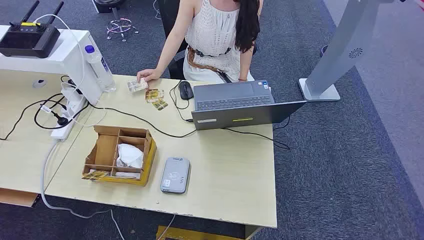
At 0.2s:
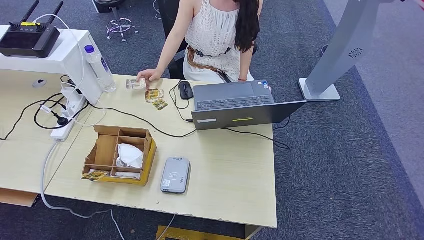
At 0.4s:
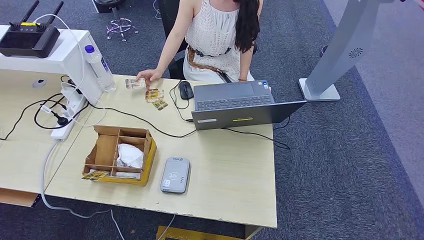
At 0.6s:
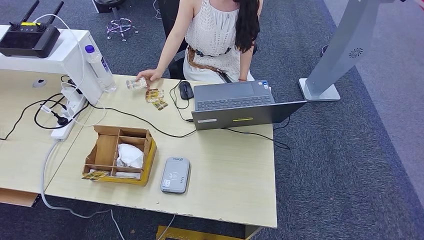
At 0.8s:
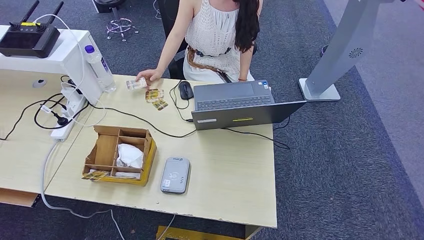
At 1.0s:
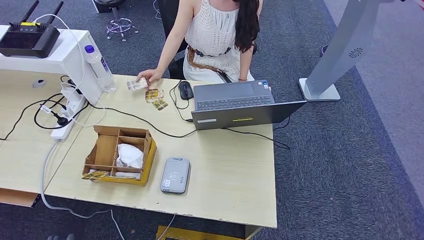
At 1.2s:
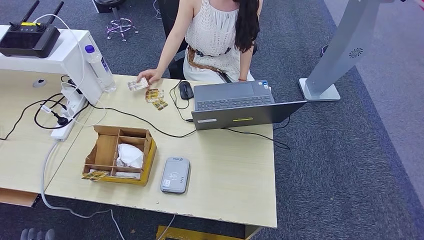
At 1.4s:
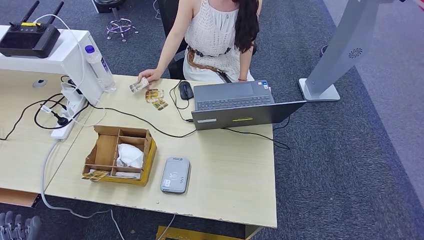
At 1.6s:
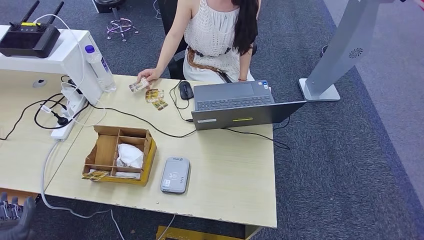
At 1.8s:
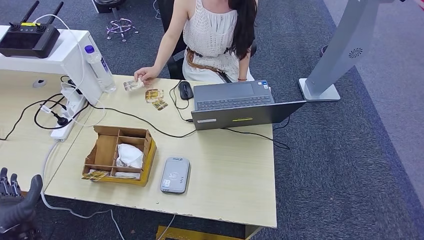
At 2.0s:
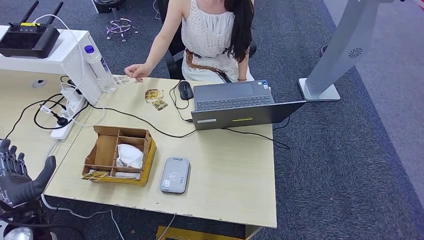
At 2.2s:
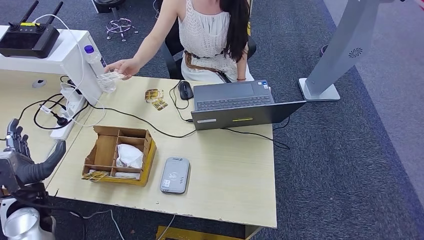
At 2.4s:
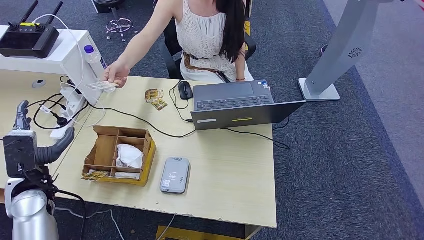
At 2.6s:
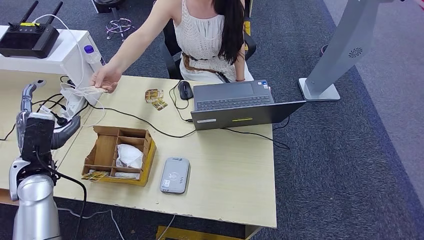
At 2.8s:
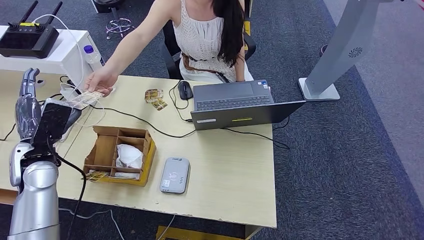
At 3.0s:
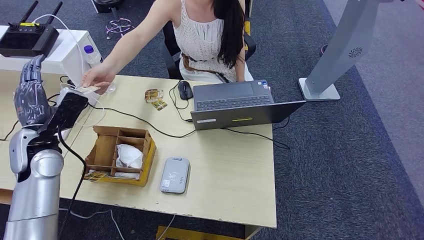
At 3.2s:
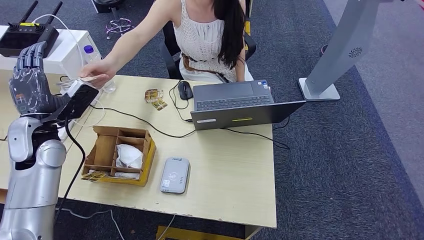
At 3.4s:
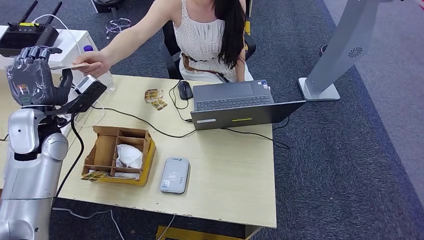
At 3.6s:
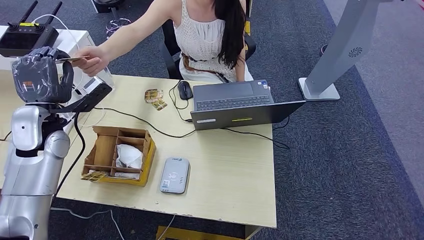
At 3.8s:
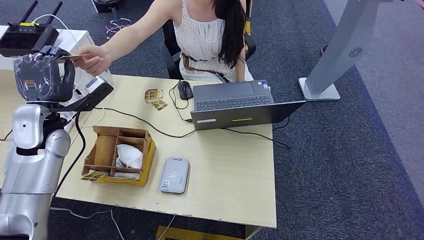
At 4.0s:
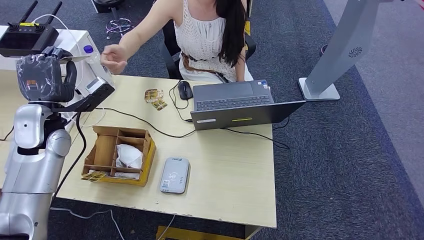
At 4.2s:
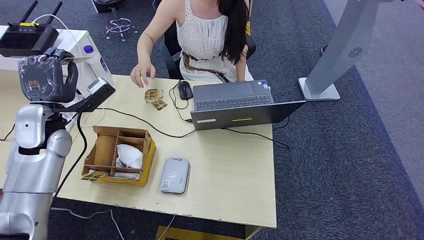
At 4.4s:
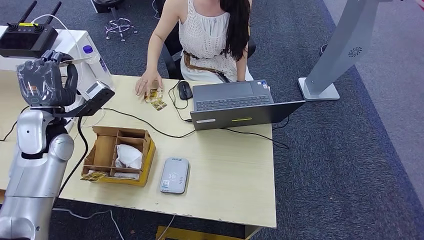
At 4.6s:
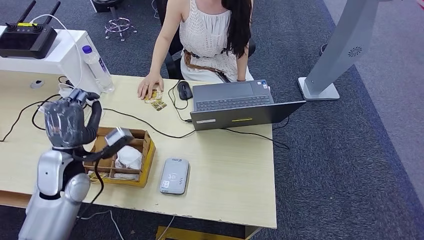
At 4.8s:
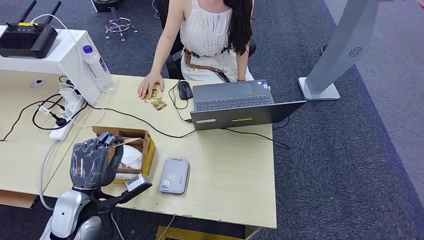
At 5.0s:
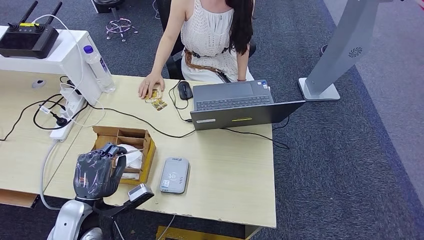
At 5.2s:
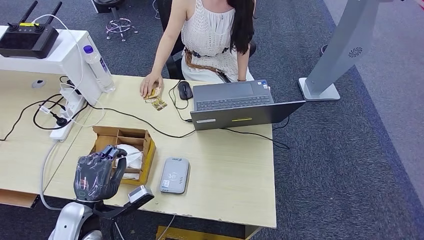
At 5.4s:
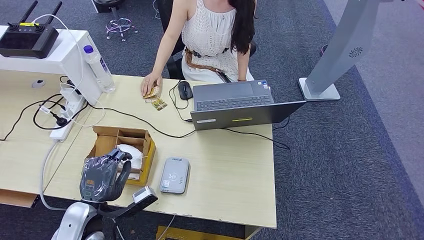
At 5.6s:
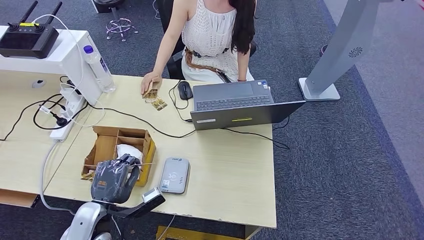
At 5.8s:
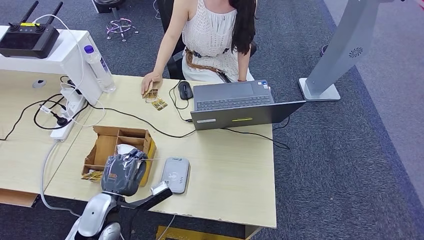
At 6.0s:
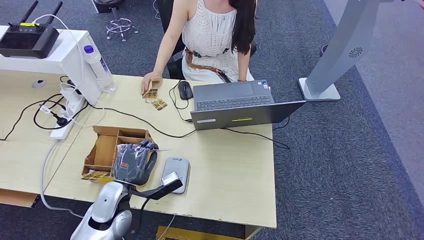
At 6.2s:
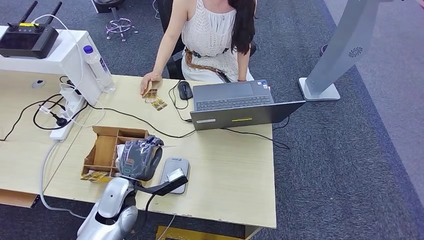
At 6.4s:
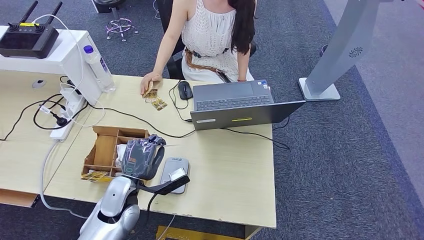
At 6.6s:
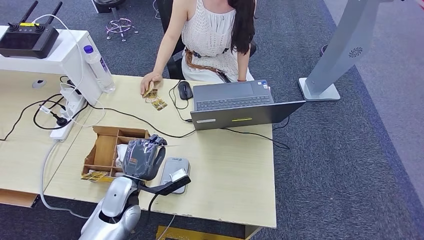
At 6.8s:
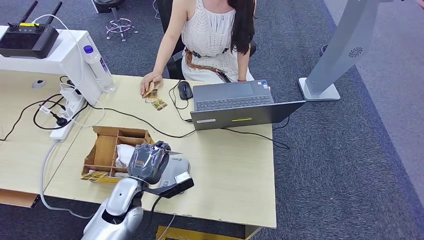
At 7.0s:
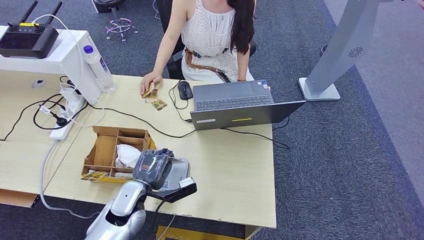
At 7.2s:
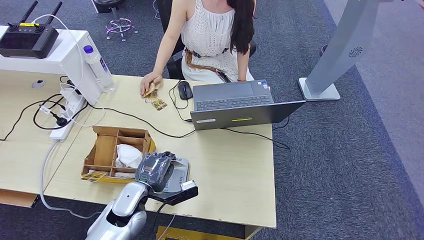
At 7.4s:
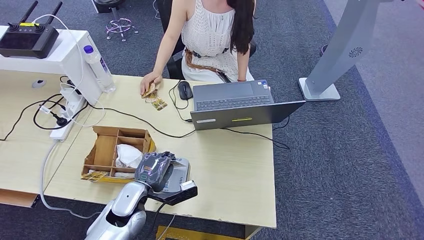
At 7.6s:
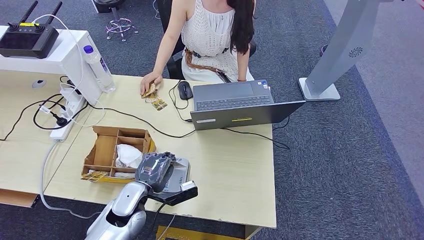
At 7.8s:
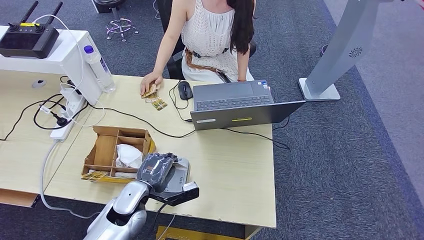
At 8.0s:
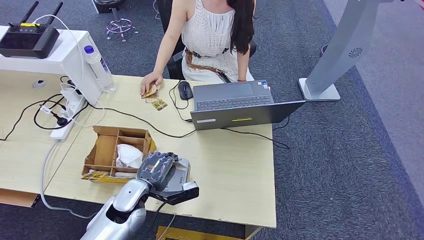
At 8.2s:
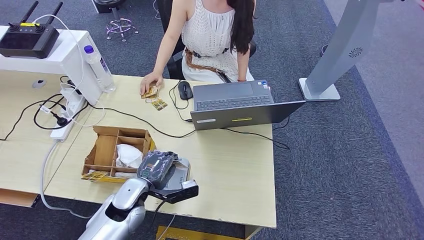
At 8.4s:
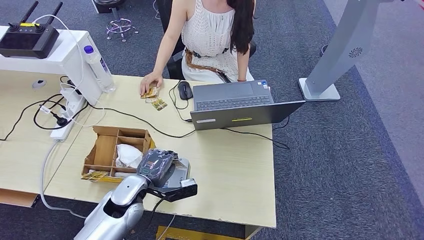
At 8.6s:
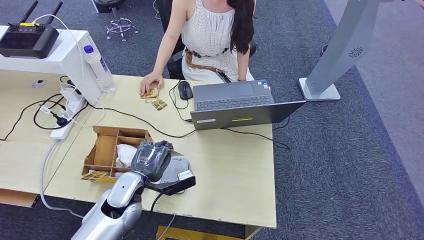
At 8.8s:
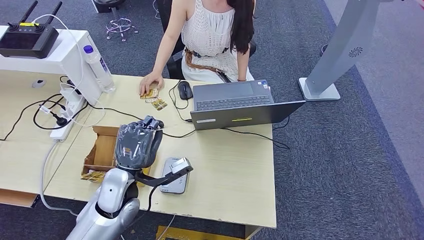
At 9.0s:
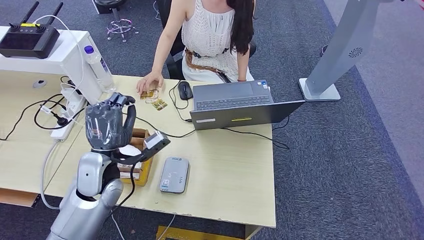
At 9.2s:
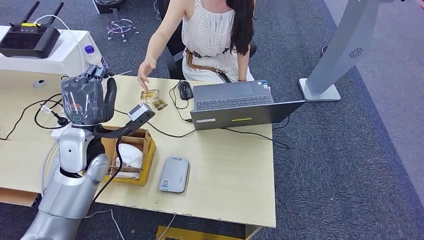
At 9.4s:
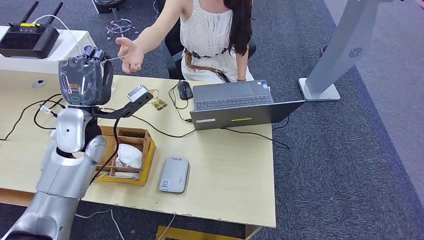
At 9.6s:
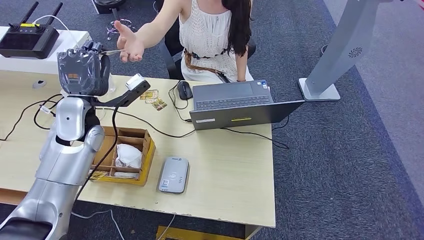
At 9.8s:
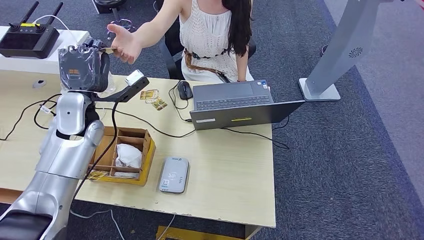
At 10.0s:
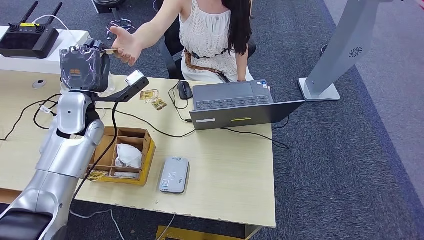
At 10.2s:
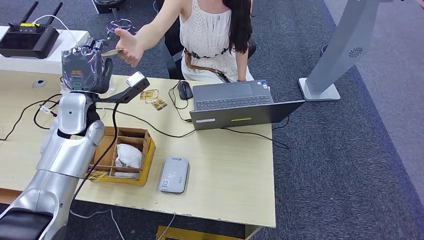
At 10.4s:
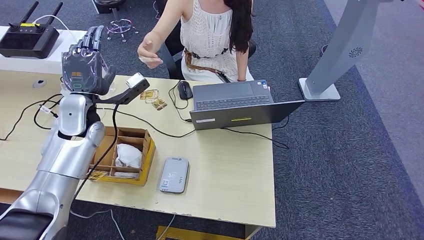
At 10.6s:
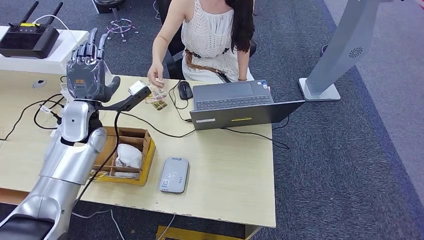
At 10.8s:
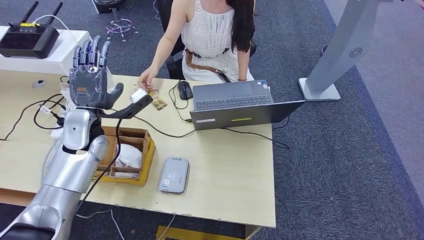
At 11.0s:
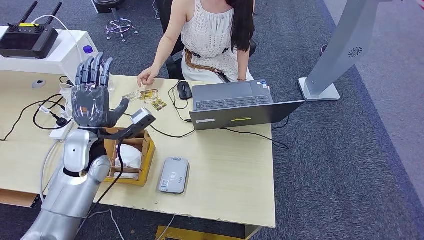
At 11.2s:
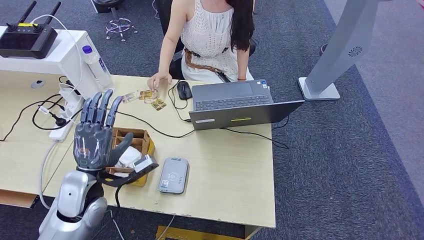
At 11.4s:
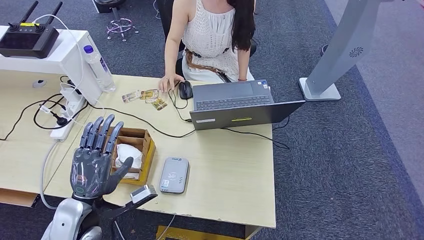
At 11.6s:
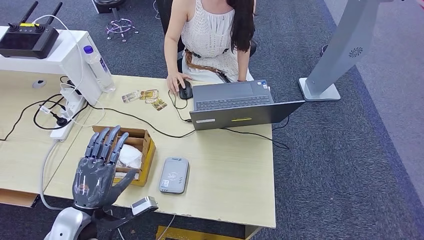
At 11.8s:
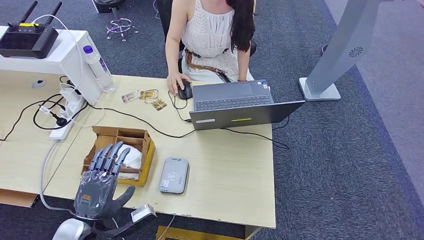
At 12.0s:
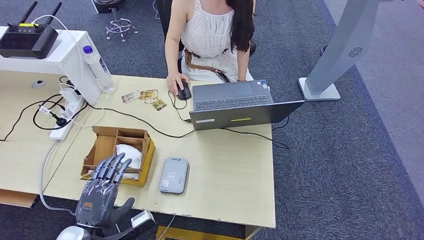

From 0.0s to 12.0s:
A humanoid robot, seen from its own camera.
Step, from 0.0s to 3.6s: Take the ID card from the person's hand.
Step, from 4.2s to 8.2s: Place the ID card on the card reader.
Step, from 8.4s to 11.0s: Hand the ID card to the person.
From 6.0s to 7.6s: The hands move only a little.
From 7.6s to 9.0s: The left hand travels upward and forward by roughly 15 cm.
From 9.0s to 10.4s: The left hand moves forward, upward and to the left, about 15 cm.
From 10.4s to 12.0s: The left hand moves backward and downward, roughly 30 cm.

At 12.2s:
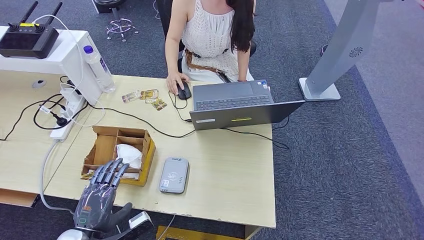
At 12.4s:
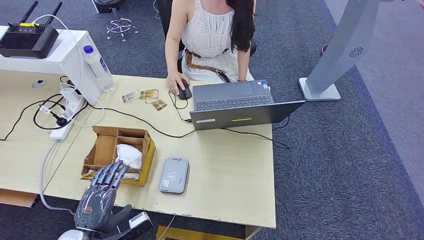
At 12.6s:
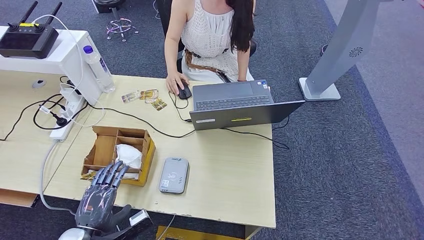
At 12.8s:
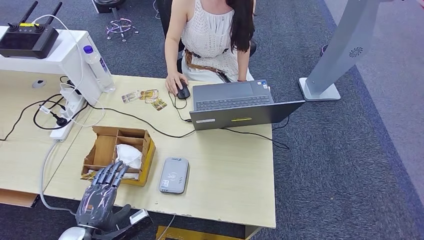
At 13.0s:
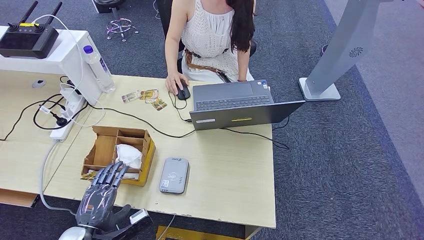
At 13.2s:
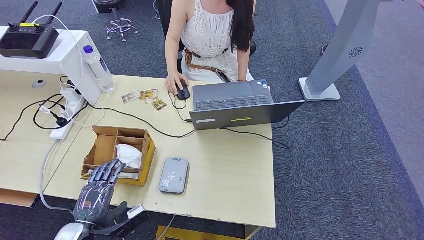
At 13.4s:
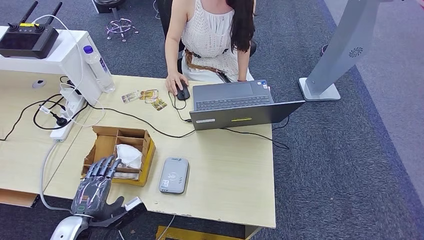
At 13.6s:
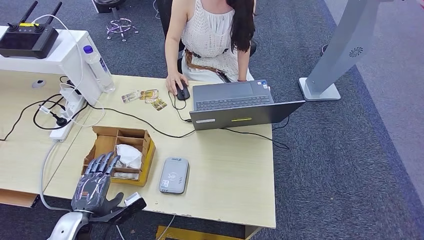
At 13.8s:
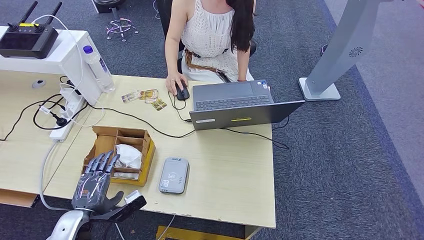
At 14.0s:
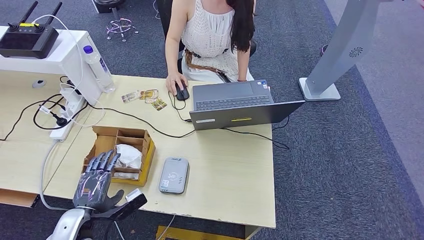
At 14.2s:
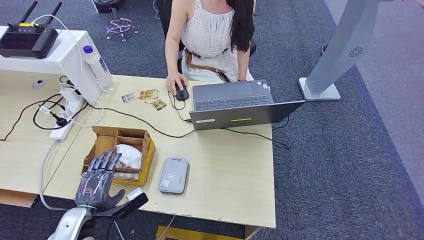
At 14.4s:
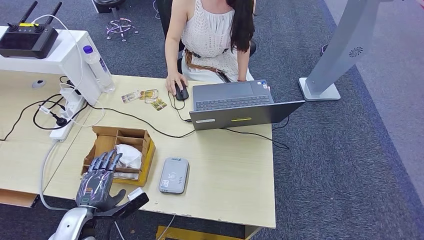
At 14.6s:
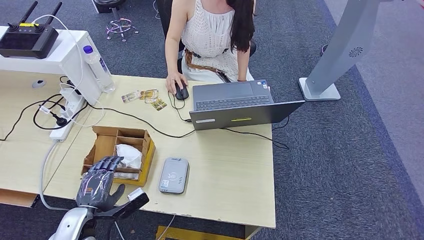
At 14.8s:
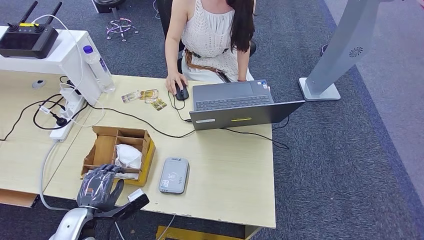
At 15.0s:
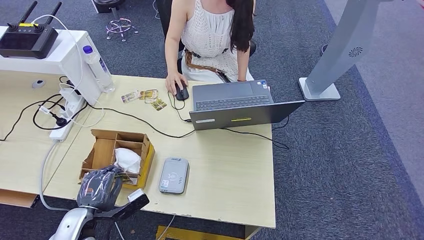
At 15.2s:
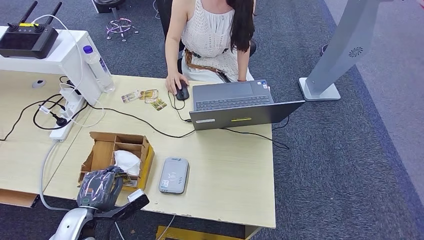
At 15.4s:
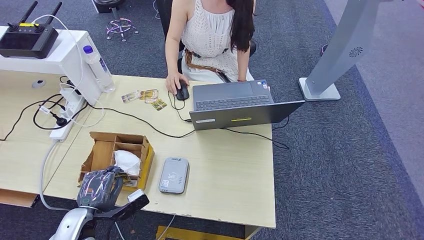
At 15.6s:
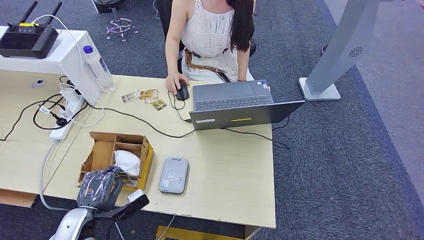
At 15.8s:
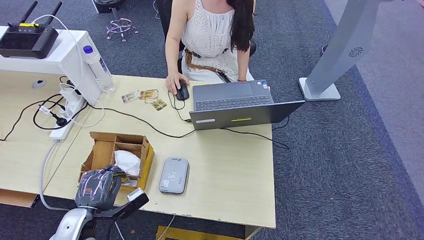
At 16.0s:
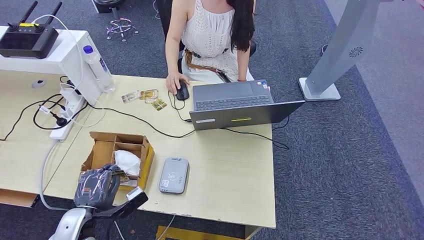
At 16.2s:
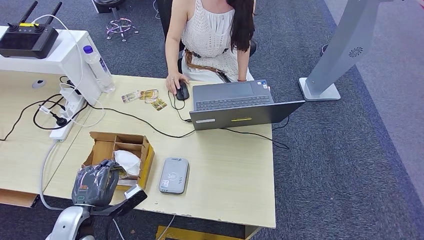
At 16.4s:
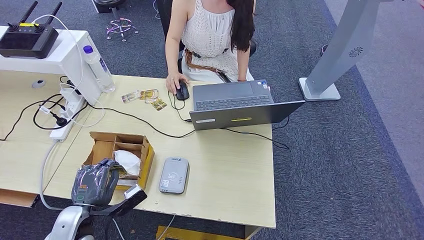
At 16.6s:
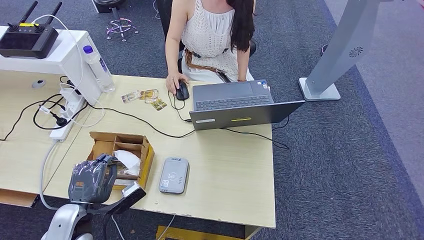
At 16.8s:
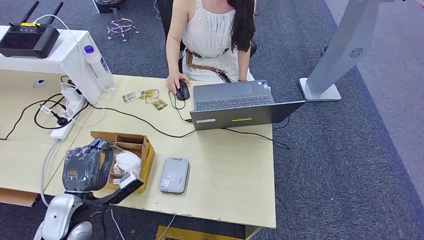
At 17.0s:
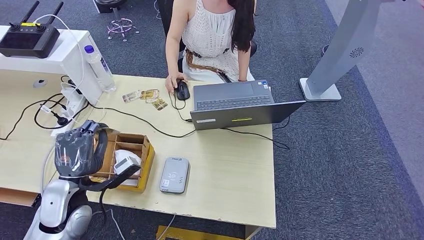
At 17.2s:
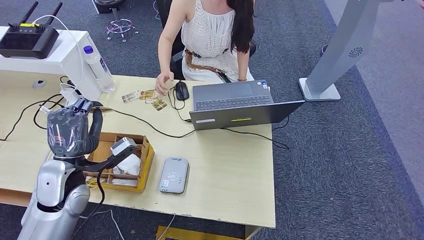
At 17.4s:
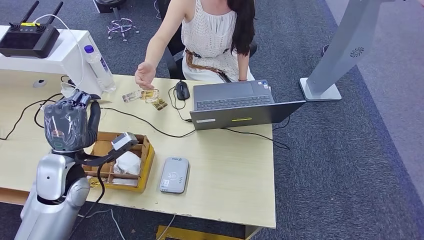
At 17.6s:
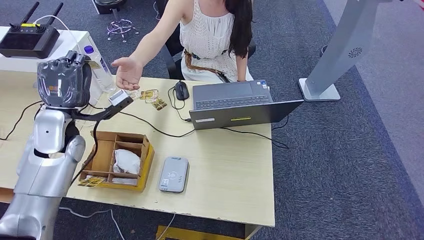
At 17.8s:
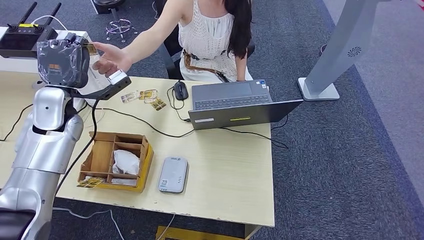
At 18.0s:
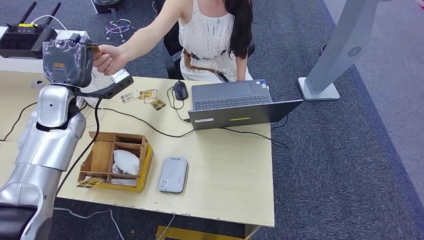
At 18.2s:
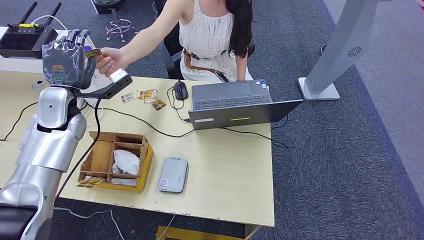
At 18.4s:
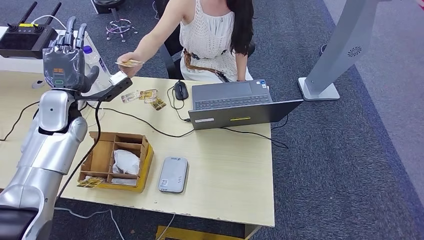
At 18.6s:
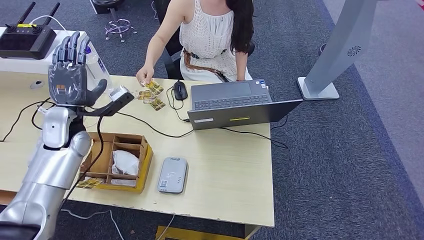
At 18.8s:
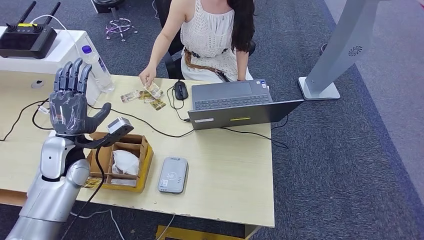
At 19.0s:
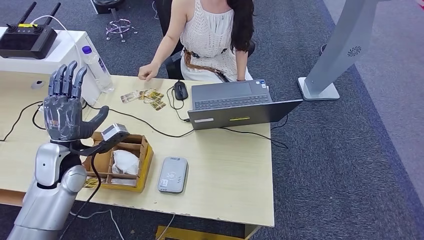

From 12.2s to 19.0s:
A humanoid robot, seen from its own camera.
Step, from 12.2s to 15.8s: Pick up the room key from the key card box.
From 12.2s to 13.6s: The left hand moves roughly 5 cm.
From 13.6s to 15.0s: Both hands stay about where they are.
From 15.0s to 16.2s: The hands stay close to where they were, moving slightly.
From 16.2s to 17.6s: The left hand heads forward and upward, covering approximately 25 cm.
From 17.6s to 19.0s: The left hand is displaced downward and backward by some 10 cm.
